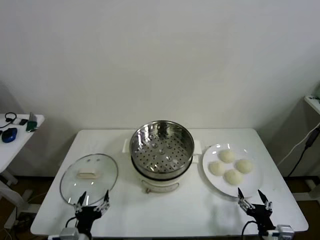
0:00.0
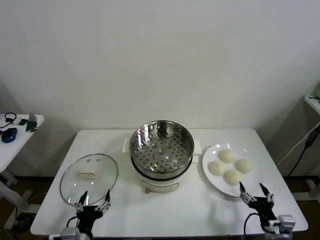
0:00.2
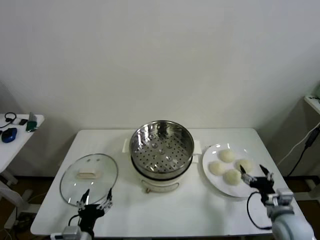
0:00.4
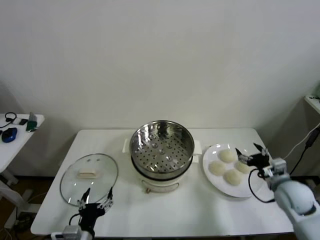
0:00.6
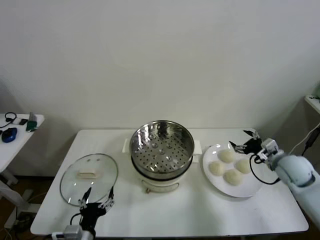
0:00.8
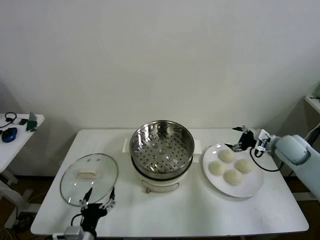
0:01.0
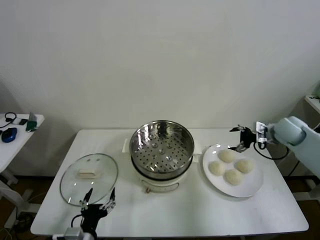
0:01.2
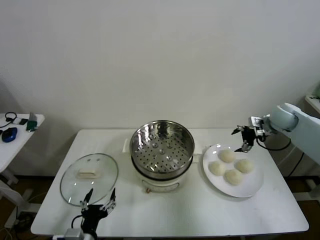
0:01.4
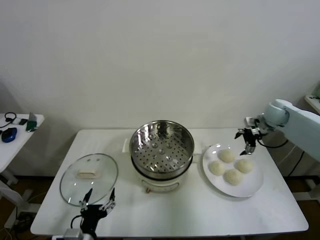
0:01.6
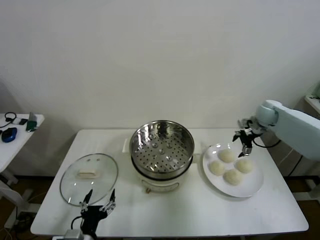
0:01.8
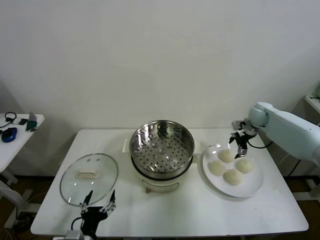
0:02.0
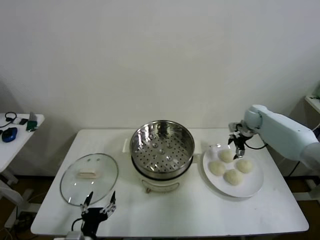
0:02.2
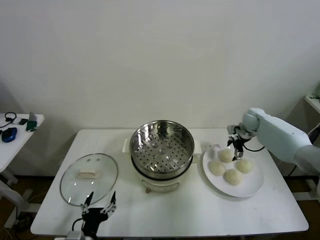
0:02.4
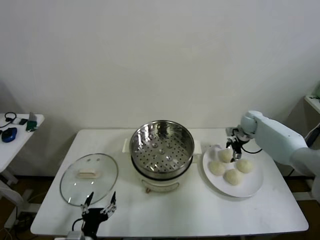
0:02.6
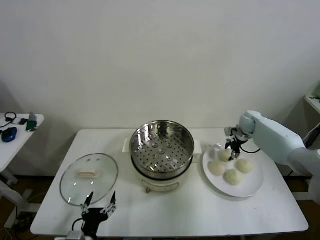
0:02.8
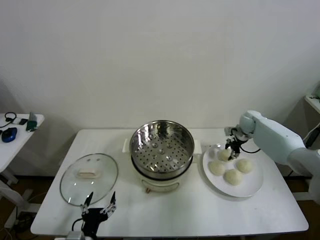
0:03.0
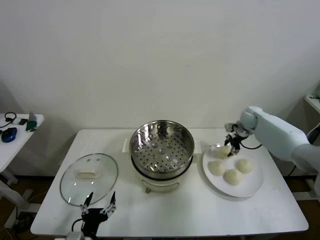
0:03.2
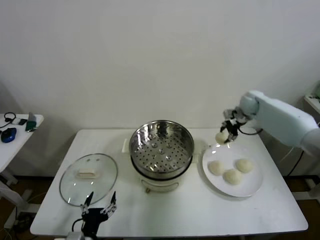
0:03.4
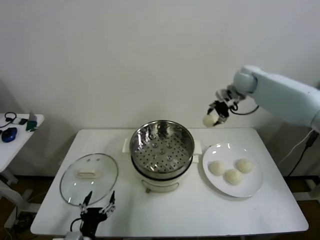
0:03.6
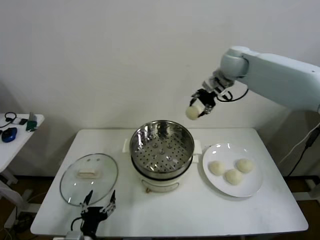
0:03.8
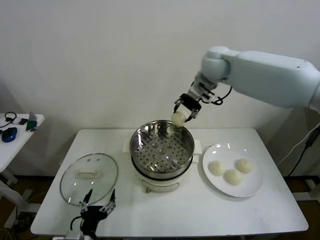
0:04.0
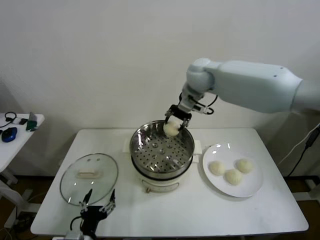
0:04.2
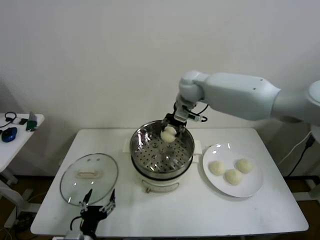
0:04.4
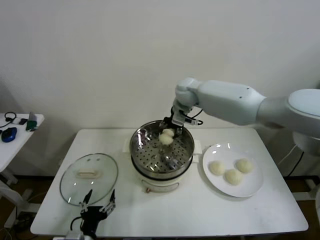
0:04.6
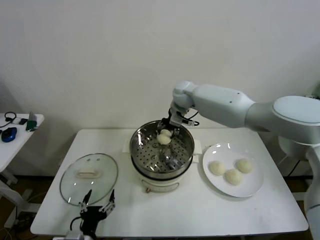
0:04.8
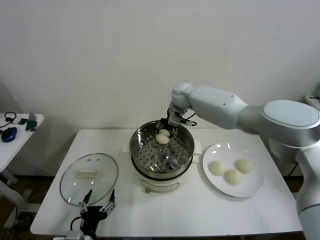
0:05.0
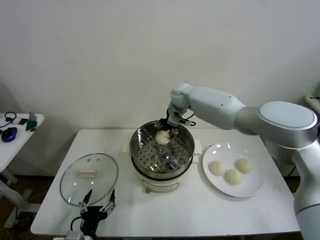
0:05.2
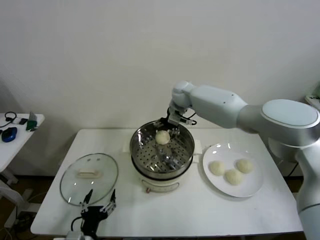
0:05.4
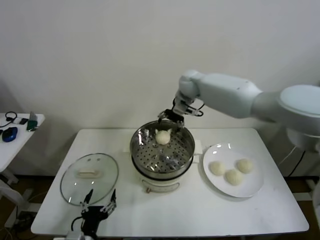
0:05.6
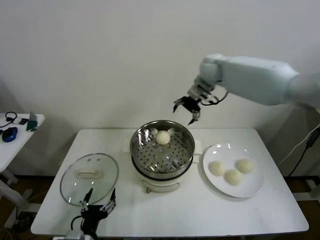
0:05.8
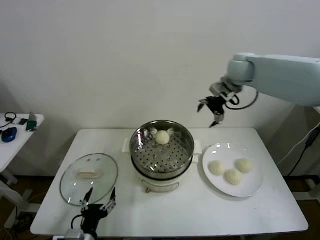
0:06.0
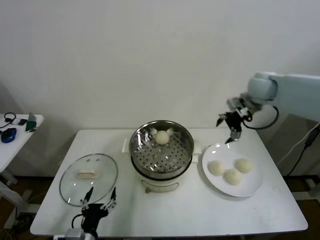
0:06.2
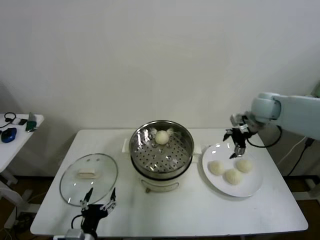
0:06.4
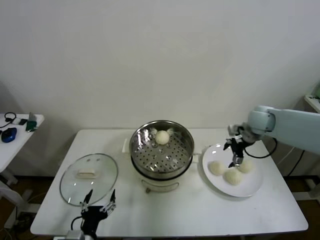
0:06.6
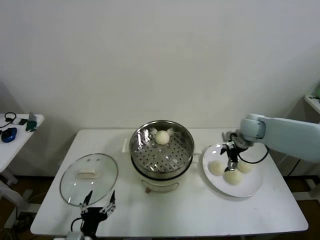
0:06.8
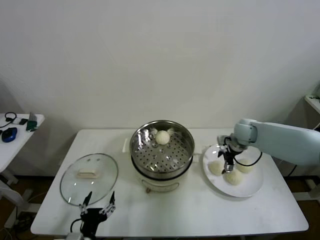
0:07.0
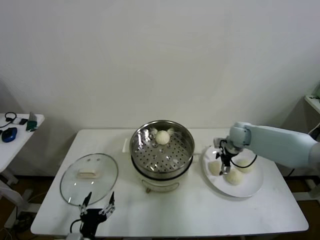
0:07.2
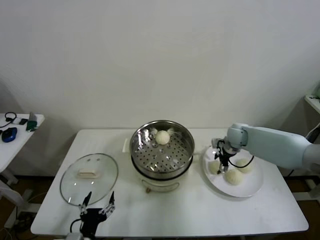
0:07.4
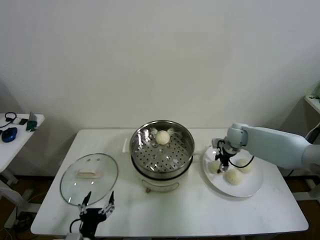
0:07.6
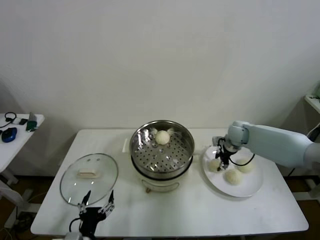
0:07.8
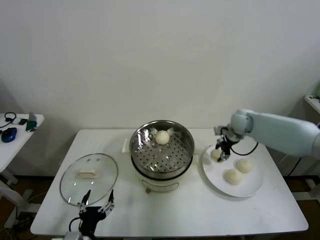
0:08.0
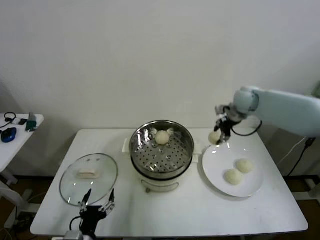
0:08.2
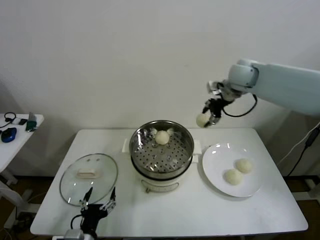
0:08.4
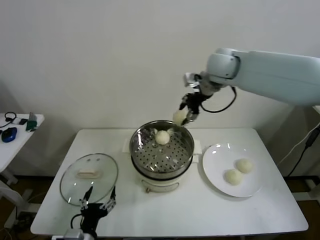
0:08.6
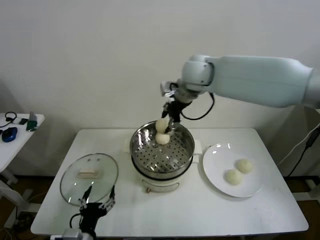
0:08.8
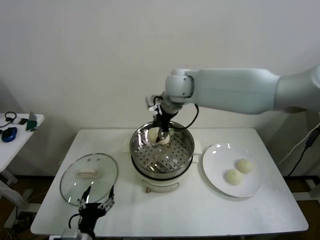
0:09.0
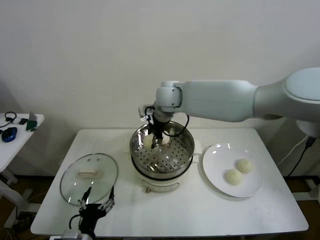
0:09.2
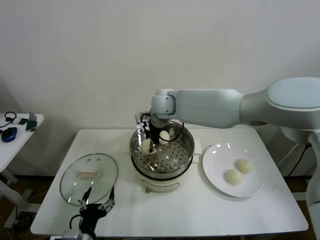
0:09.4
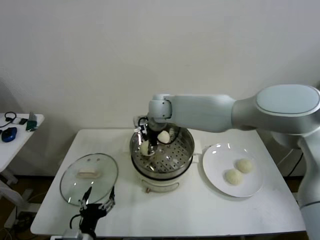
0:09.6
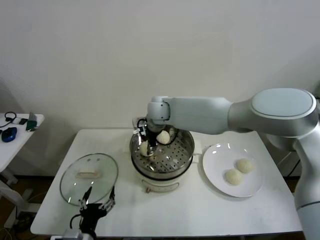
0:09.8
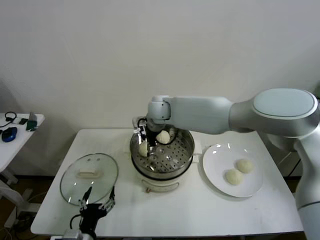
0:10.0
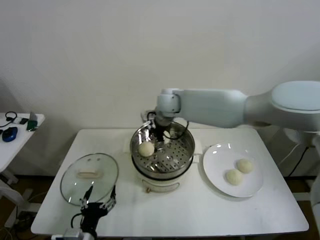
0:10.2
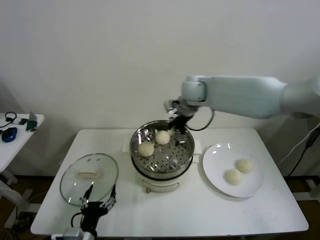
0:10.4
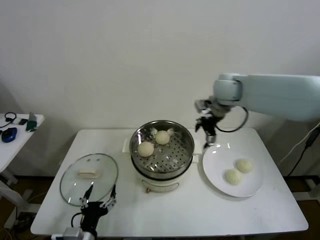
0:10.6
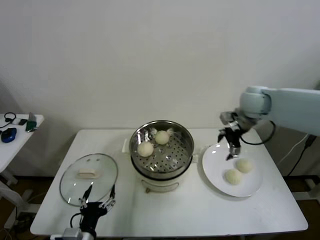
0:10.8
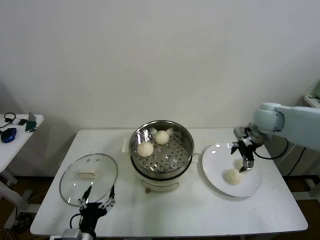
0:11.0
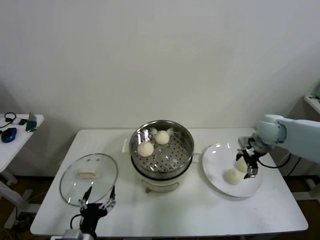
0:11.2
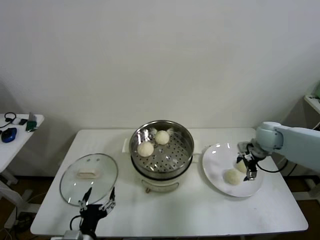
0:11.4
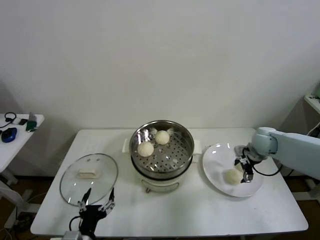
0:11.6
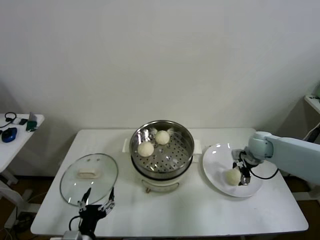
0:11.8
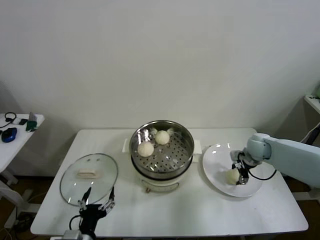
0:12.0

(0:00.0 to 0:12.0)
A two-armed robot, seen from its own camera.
Step, 0:00.0 - 0:02.8: Grasp the baozi in the plate with right gripper.
Step, 0:03.0 - 0:05.2: Place the baozi on the steamer with right gripper.
Step, 0:05.4 - 0:07.6: Grasp the baozi in the plate with right gripper.
Step, 0:07.8 - 0:09.8: Place the baozi on the steamer with right gripper.
0:01.6 - 0:03.0: The right gripper is displaced downward by some 10 cm, and closes up.
0:03.0 - 0:04.4: The right gripper is displaced to the left and upward by about 35 cm.
0:04.4 - 0:06.0: The right gripper shifts about 20 cm to the right, and opens up.
0:06.0 - 0:07.6: The right gripper travels downward by approximately 25 cm, and closes its fingers.
0:07.6 - 0:09.0: The right gripper is displaced to the left and upward by some 35 cm.
0:09.0 - 0:10.4: The right gripper shifts roughly 10 cm to the right, and opens up.
0:10.4 - 0:12.0: The right gripper travels to the right and downward by about 30 cm, and closes.

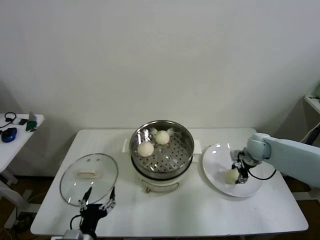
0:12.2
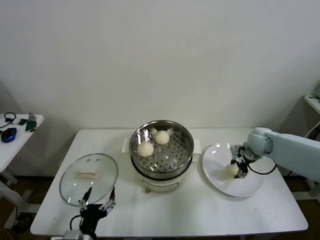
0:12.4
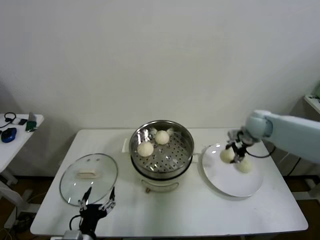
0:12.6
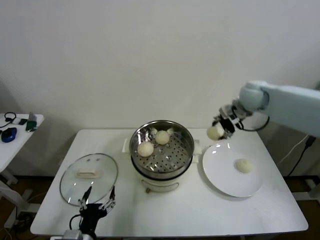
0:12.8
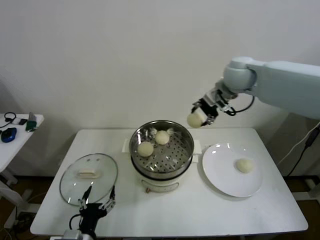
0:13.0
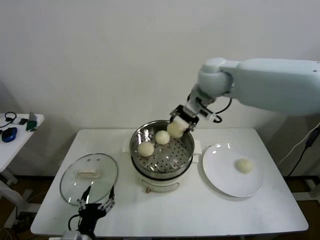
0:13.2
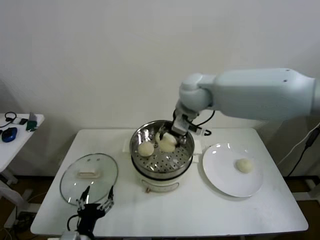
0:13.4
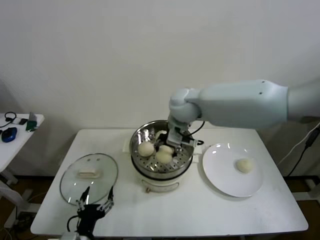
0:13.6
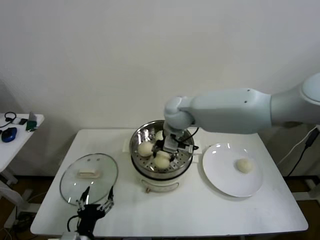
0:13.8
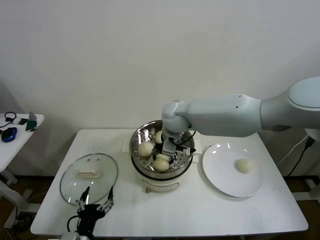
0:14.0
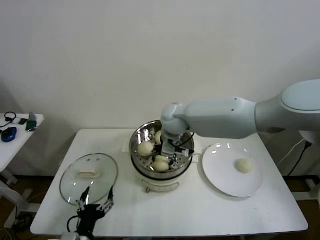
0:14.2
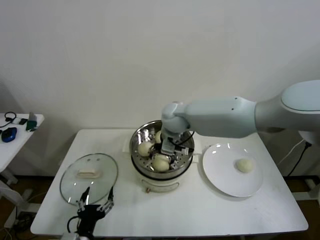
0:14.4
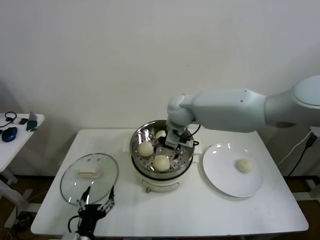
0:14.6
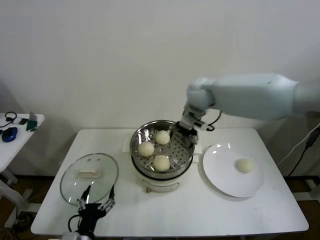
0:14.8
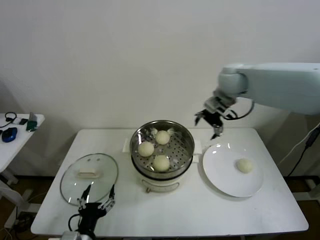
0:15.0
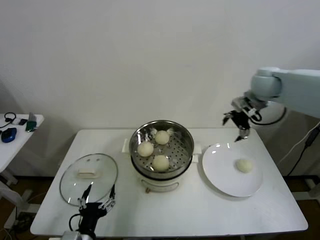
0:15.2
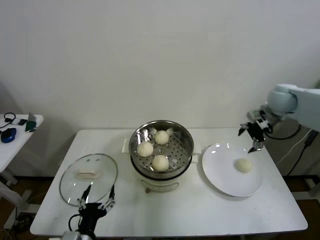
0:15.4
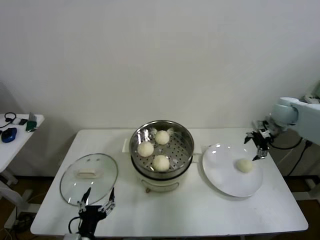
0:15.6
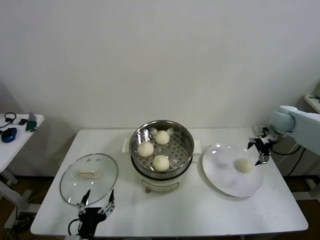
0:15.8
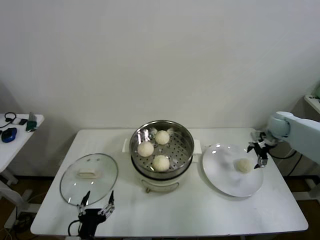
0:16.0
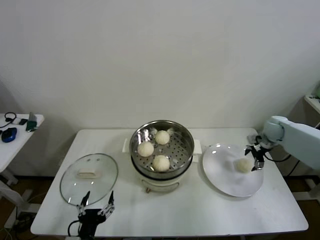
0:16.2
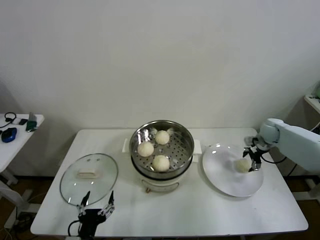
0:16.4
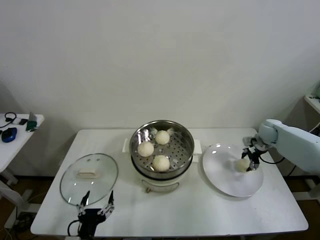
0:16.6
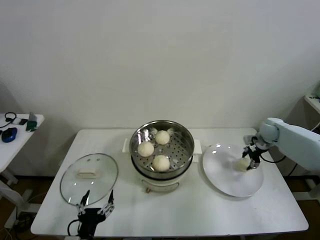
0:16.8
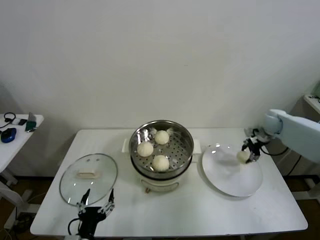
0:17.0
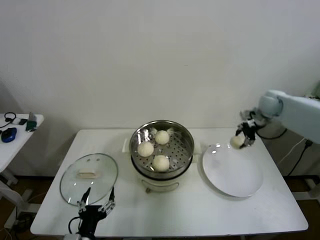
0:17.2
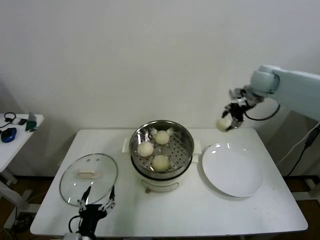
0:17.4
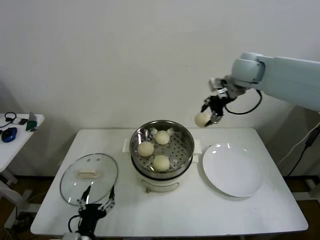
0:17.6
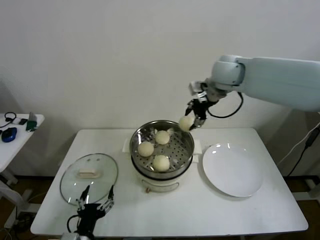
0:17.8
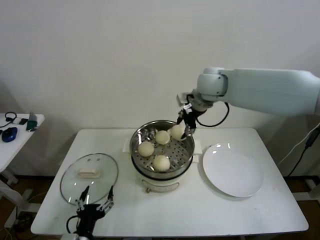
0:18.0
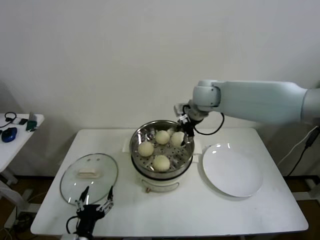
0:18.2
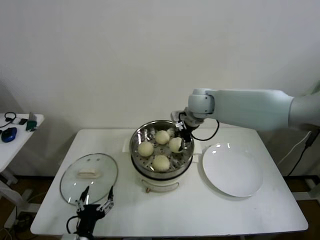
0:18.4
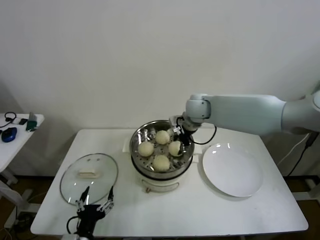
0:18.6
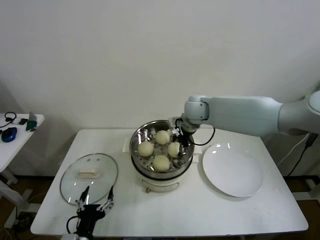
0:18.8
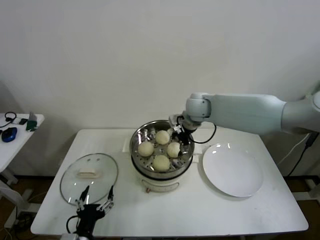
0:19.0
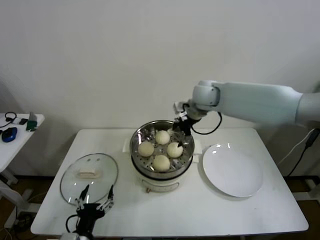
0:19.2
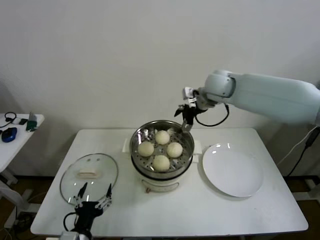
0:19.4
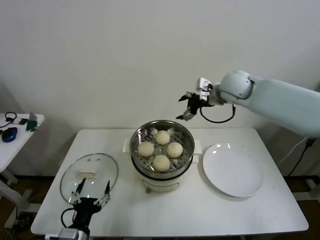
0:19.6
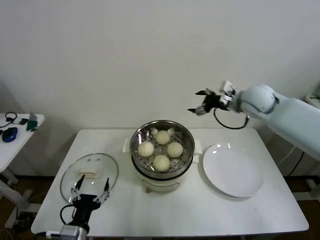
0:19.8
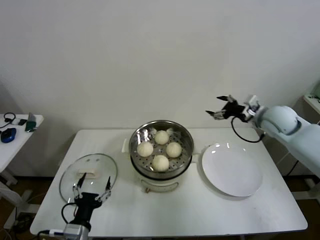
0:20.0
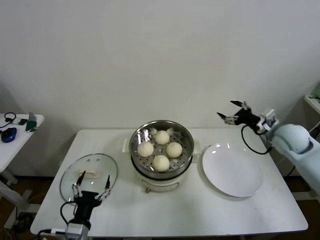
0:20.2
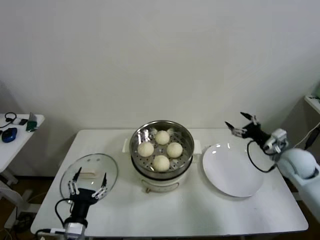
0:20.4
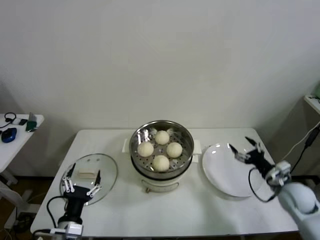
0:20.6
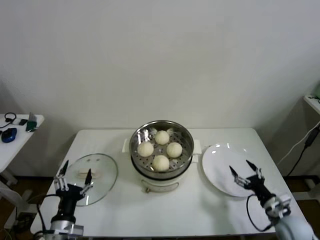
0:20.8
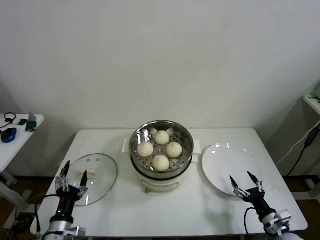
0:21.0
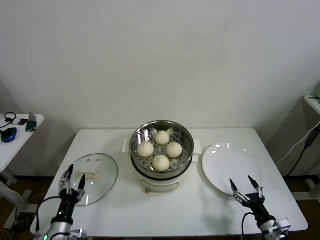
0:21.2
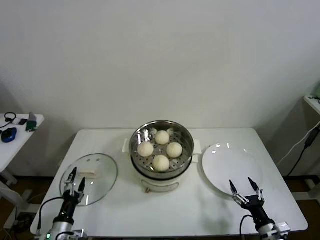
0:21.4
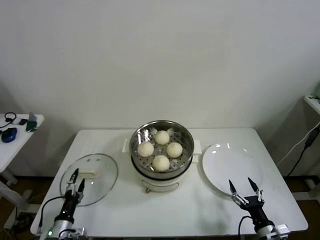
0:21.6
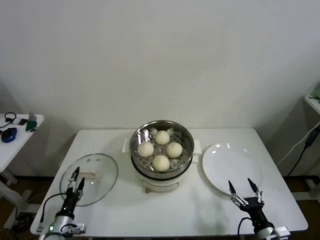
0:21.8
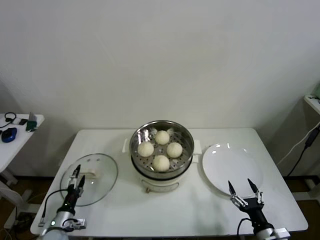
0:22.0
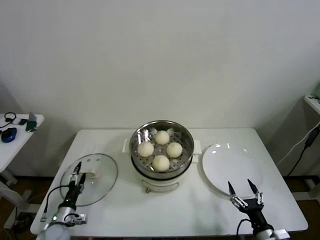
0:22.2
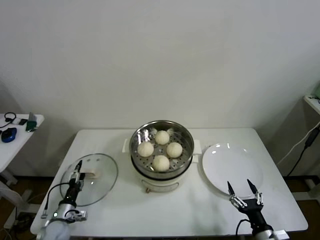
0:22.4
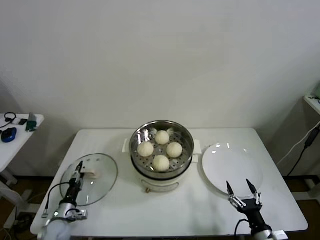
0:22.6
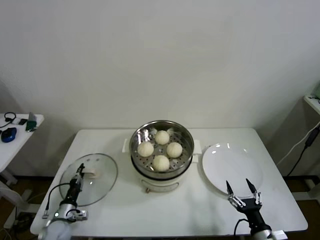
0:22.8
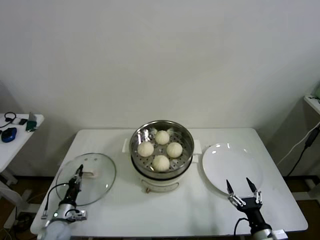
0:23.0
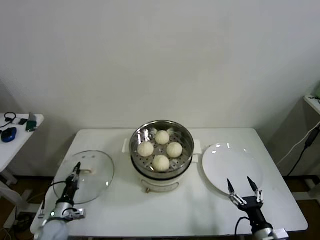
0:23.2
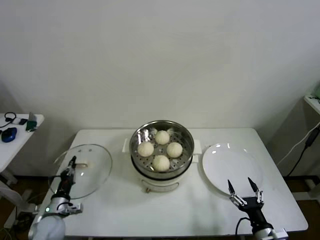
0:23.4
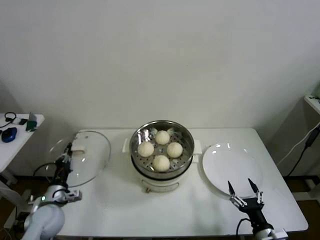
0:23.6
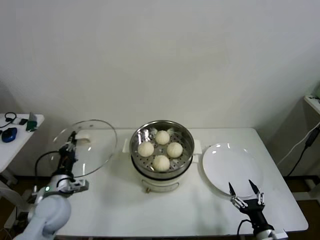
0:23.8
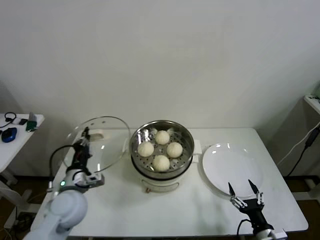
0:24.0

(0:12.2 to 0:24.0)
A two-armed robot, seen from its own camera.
Step, 0:12.4 - 0:14.2: Place the baozi on the steamer with right gripper.
Step, 0:14.4 - 0:16.4: Grasp the baozi in the plate with right gripper.
Step, 0:16.8 - 0:18.8: Place the baozi on the steamer with right gripper.
Step, 0:19.0 - 0:23.0: Grasp the pot lid with left gripper.
0:12.2 - 0:13.6: The right gripper goes roughly 35 cm to the left and upward.
0:13.6 - 0:15.2: The right gripper heads to the right, covering roughly 25 cm, and opens up.
0:15.2 - 0:16.6: The right gripper moves downward and to the right, some 25 cm, and closes up.
0:16.6 - 0:18.2: The right gripper goes some 35 cm to the left and upward.
0:18.2 - 0:19.6: The right gripper shifts approximately 10 cm to the right, and opens up.
0:19.6 - 0:21.0: The right gripper moves downward, backward and to the right, approximately 50 cm; the left gripper goes roughly 5 cm to the left.
0:21.0 - 0:22.6: The right gripper is displaced to the left and backward by roughly 10 cm. The left gripper moves downward, forward and to the left, approximately 20 cm, and closes its fingers.
0:22.6 - 0:24.0: The left gripper is displaced upward and to the right by some 25 cm, and closes.
